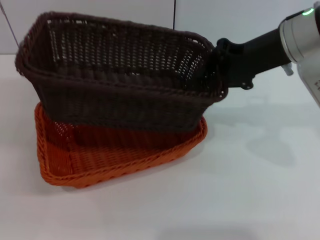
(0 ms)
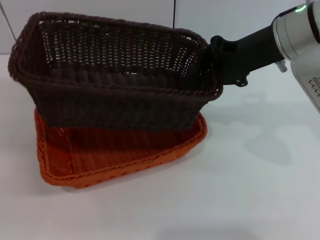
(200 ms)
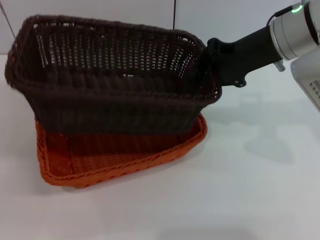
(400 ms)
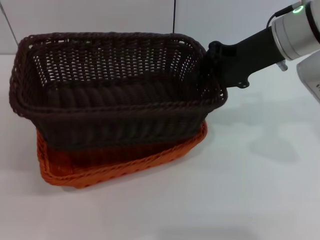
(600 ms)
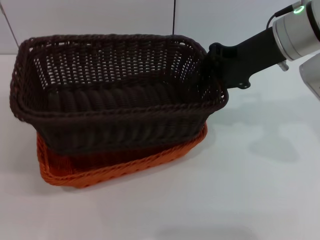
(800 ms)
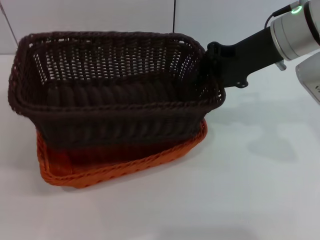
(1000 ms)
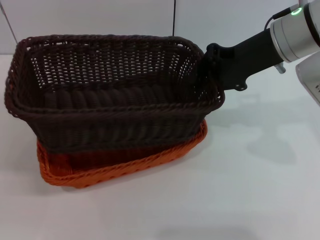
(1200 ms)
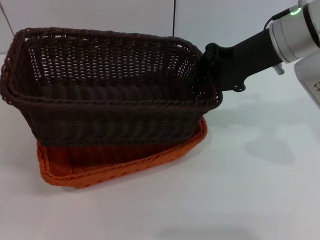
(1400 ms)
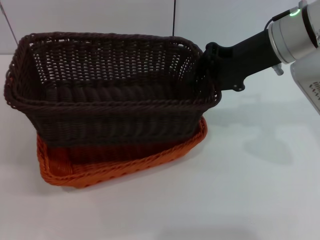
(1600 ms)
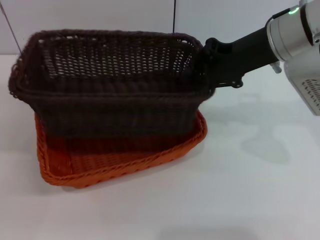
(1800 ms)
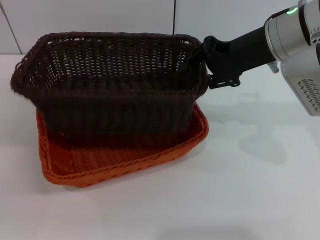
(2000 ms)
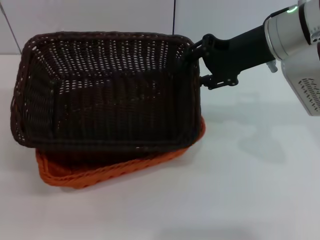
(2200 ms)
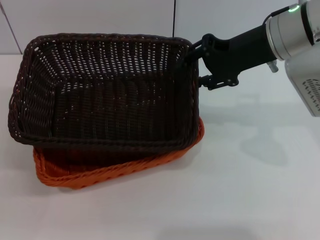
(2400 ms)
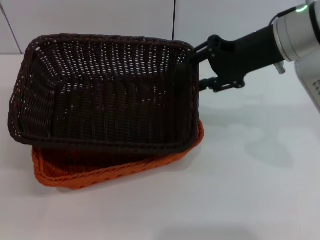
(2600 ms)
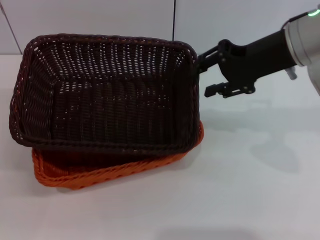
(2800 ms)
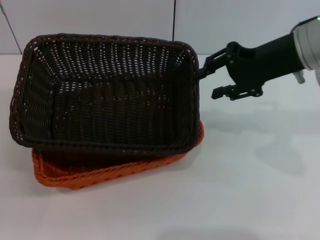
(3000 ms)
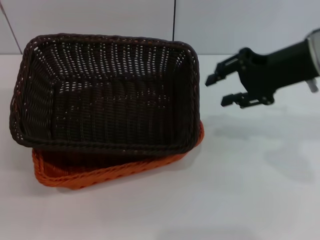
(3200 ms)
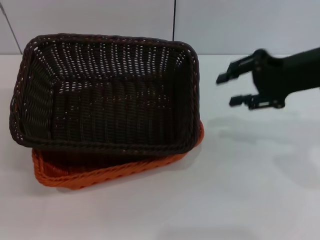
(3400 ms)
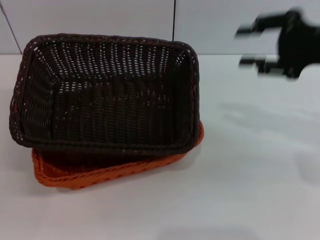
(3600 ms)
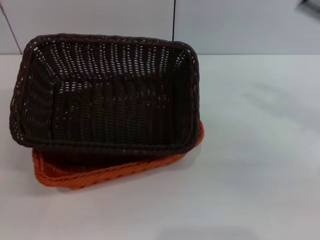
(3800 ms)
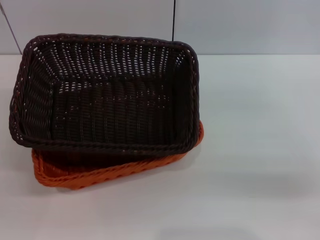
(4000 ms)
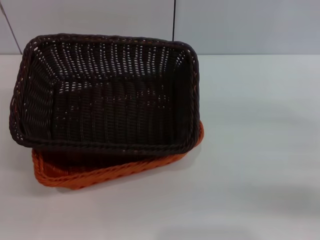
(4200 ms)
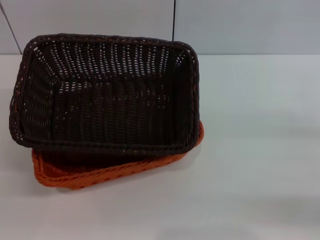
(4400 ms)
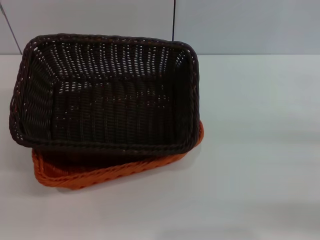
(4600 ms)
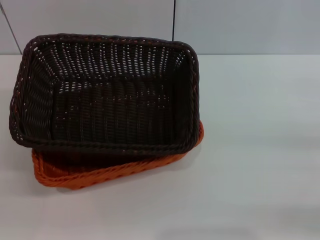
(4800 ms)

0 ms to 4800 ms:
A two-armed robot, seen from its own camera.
Step, 0 ms to 2600 ms: Place the dark basket on the light basket with the right gripper.
0 ms to 1600 ms: There are only small adjustments of the grippers.
1600 ms to 3200 ms: The right gripper changes place by approximately 5 cm, and opens.
3200 ms to 4800 ms: The right gripper shifts approximately 25 cm to the right, downward and backward.
